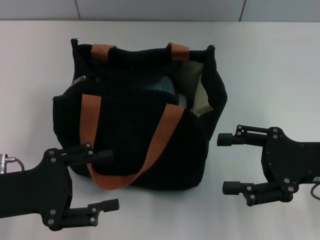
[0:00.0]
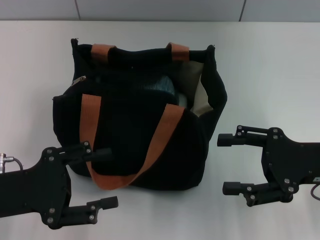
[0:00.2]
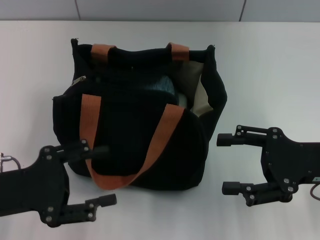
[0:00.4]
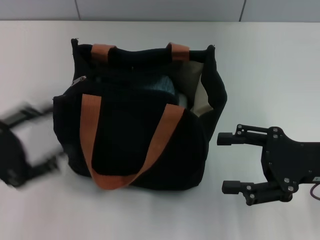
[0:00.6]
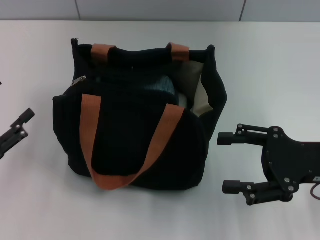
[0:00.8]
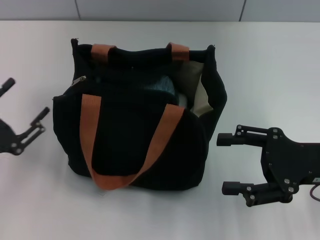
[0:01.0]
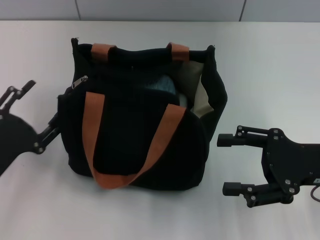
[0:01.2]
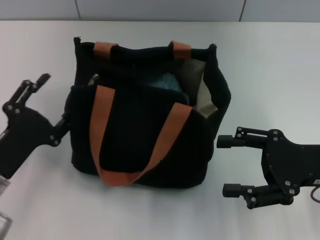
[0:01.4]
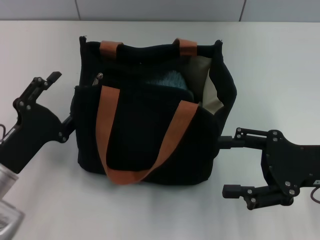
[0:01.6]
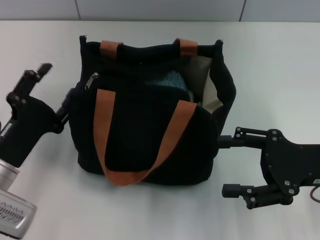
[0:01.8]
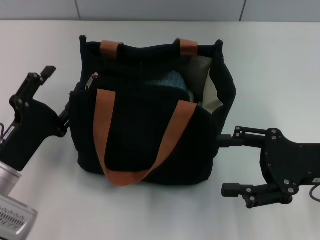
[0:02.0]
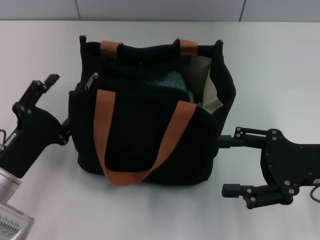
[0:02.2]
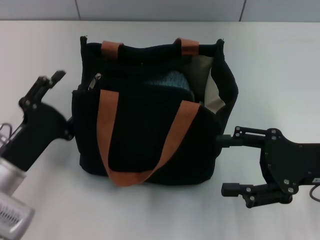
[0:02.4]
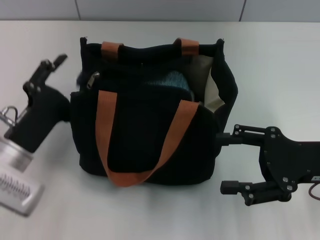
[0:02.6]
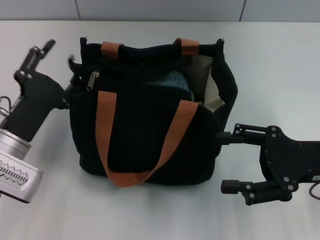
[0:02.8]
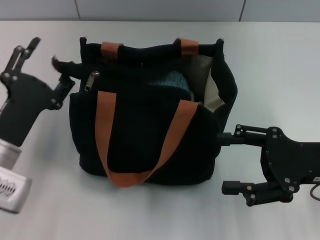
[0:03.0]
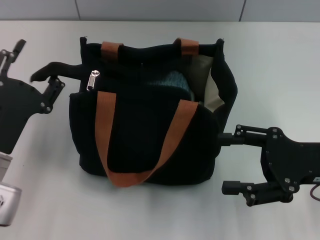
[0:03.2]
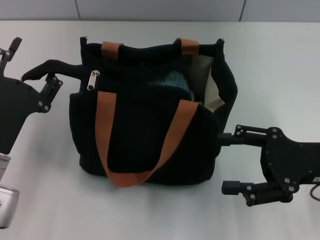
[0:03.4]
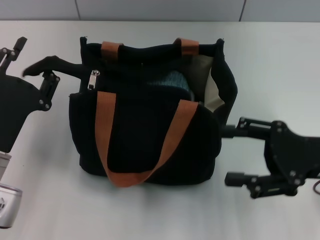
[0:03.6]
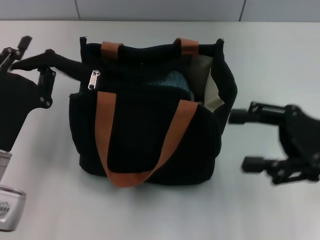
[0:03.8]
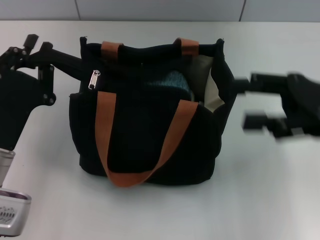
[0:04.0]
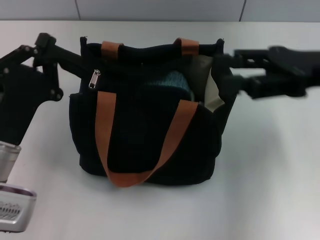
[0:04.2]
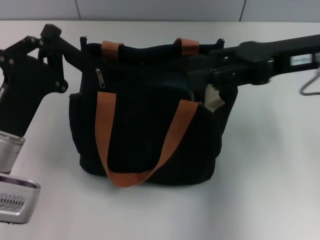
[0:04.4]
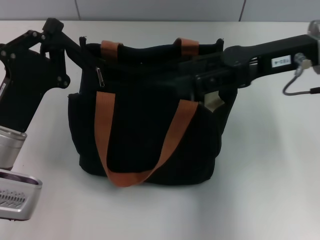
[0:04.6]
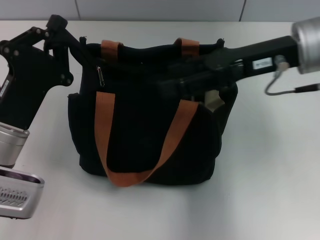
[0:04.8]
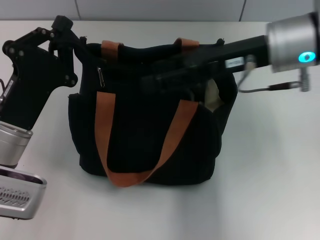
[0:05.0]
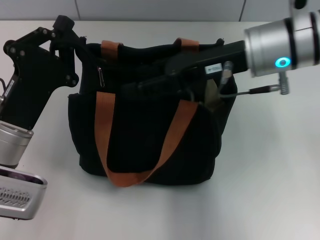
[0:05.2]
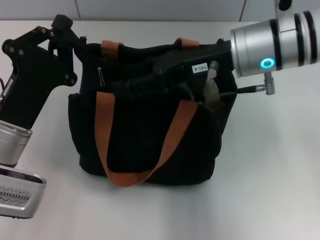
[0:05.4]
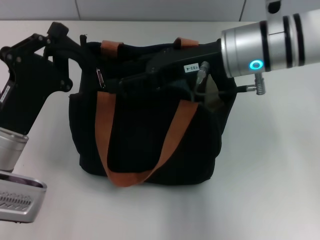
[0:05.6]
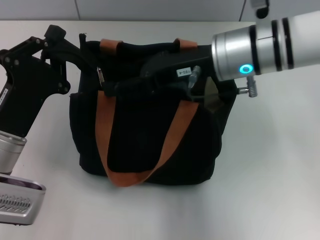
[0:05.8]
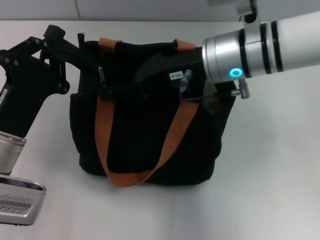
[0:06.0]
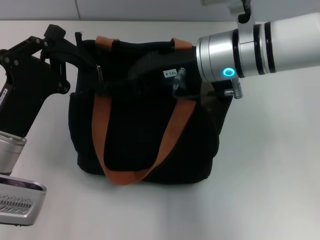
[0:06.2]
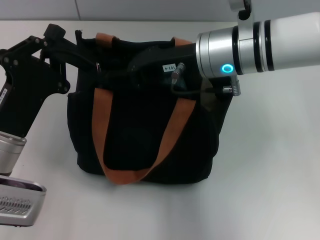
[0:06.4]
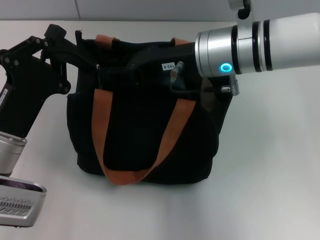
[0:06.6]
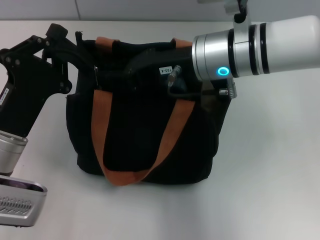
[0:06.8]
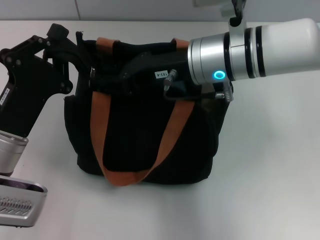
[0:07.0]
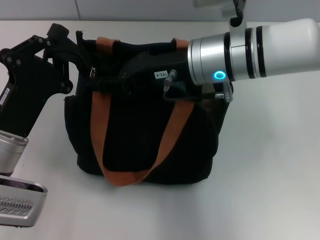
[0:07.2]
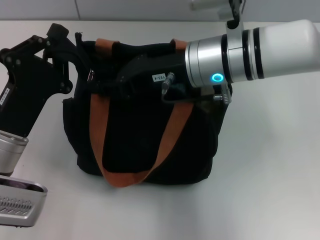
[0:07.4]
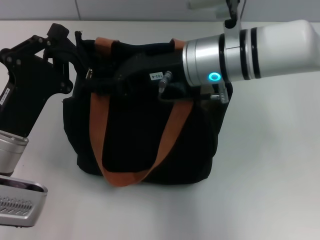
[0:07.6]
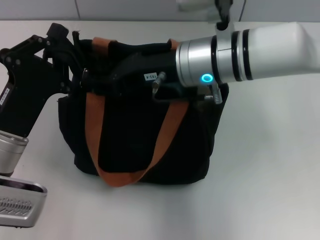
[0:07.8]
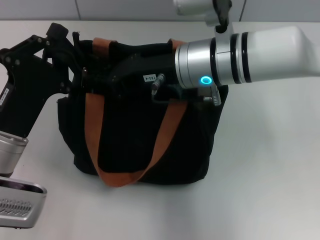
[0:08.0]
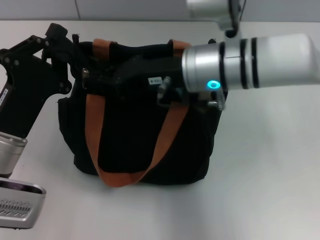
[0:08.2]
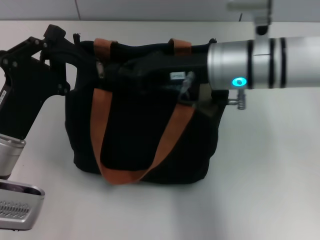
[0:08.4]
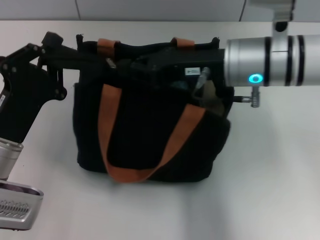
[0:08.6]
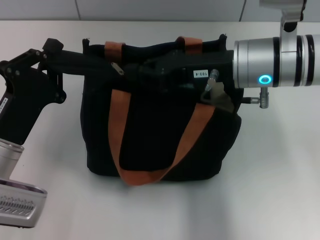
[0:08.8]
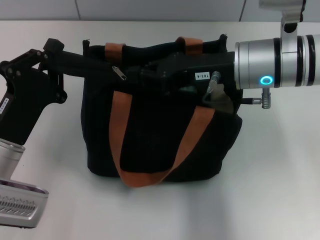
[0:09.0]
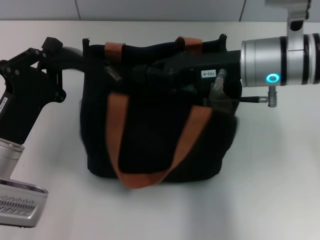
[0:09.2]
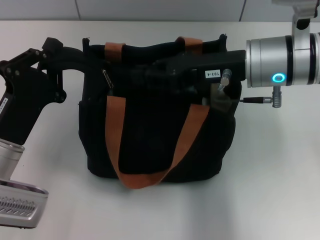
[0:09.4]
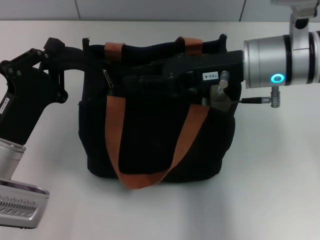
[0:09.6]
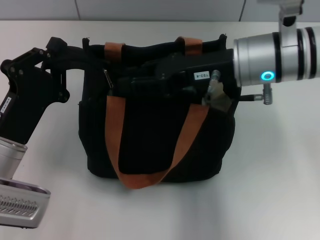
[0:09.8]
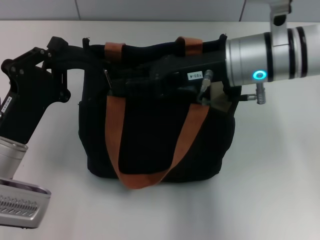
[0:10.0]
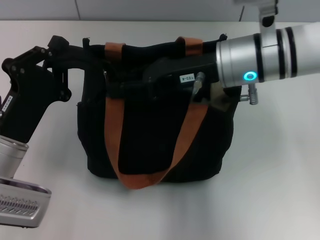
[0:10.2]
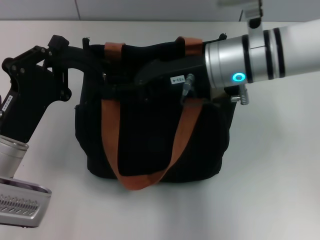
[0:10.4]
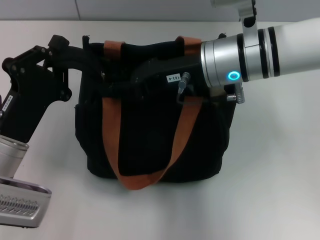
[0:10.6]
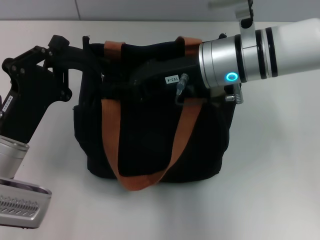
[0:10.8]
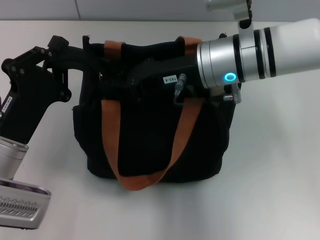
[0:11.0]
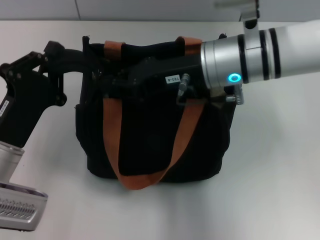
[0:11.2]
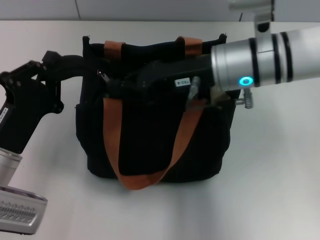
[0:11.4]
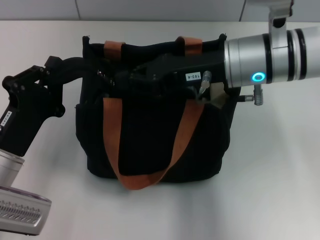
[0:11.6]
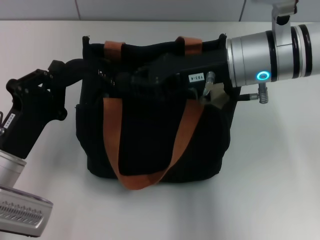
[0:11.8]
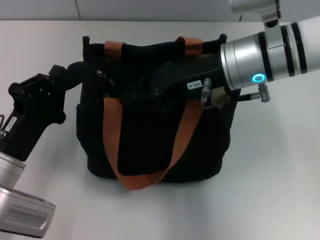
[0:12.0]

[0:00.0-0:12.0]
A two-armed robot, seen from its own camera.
0:00.0 to 0:01.6: The left gripper shifts roughly 5 cm downward, and travels to the left and back again, some 5 cm each way.
0:01.6 to 0:03.0: The grippers make only small movements.
0:03.0 to 0:04.4: The right gripper goes approximately 15 cm upward, forward and to the left, while the left gripper closes its fingers.
0:04.4 to 0:06.0: The right gripper goes approximately 10 cm to the left.
0:06.0 to 0:07.6: The right gripper closes.
0:07.6 to 0:09.0: The right gripper heads to the right, covering about 5 cm, and closes up.
0:09.0 to 0:10.4: The right gripper opens up.
0:10.4 to 0:12.0: The right gripper closes its fingers.

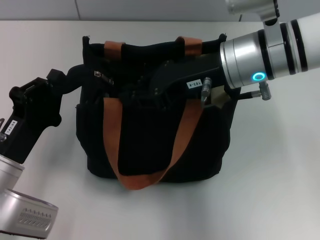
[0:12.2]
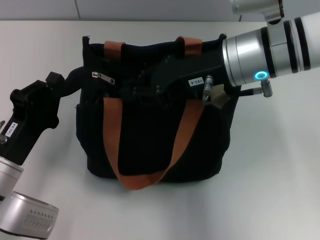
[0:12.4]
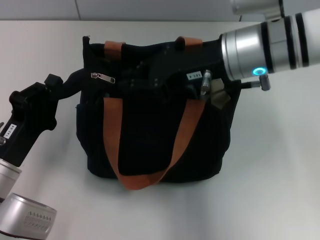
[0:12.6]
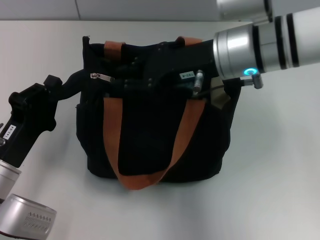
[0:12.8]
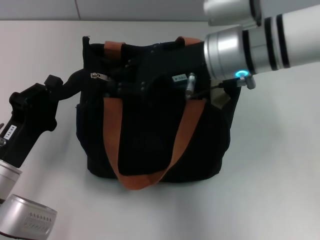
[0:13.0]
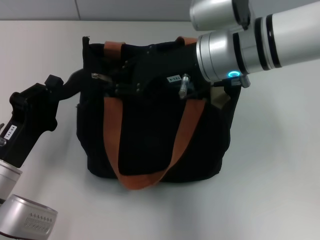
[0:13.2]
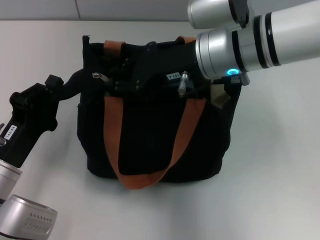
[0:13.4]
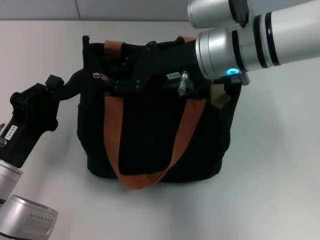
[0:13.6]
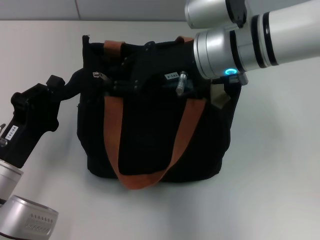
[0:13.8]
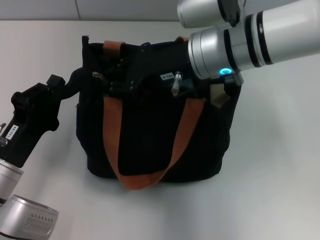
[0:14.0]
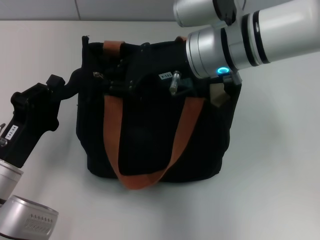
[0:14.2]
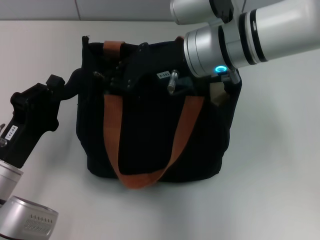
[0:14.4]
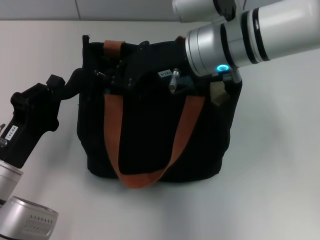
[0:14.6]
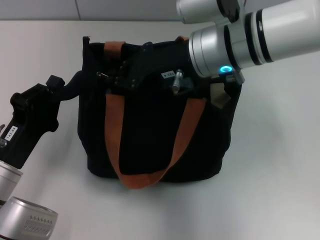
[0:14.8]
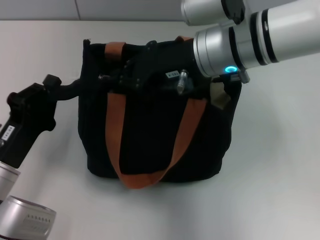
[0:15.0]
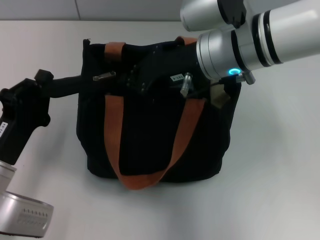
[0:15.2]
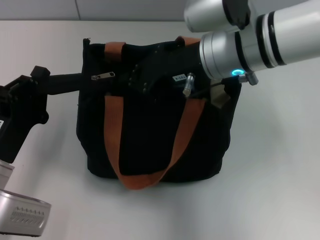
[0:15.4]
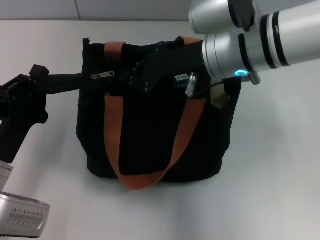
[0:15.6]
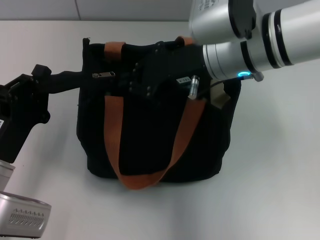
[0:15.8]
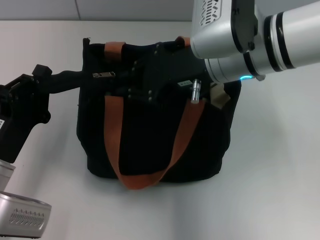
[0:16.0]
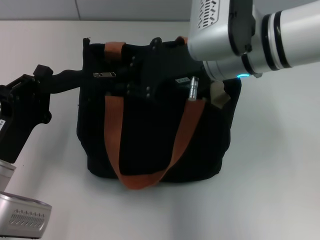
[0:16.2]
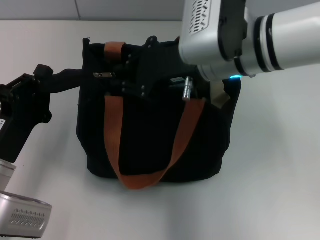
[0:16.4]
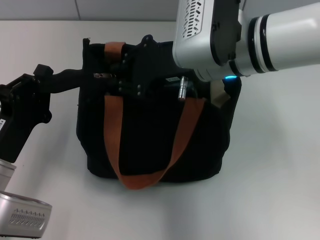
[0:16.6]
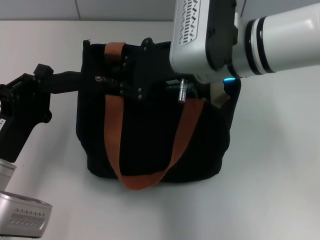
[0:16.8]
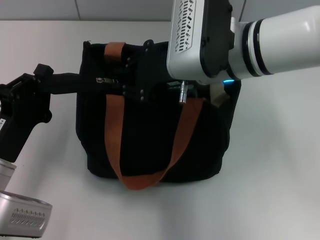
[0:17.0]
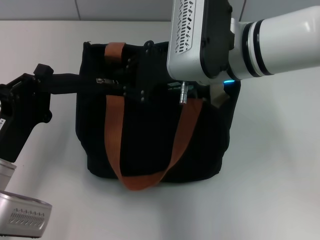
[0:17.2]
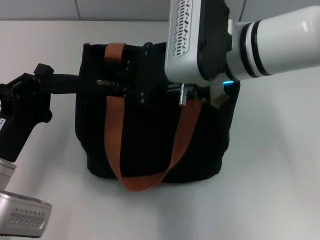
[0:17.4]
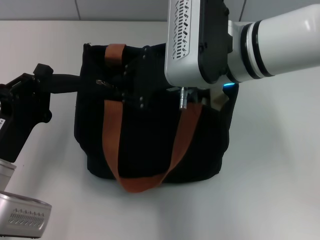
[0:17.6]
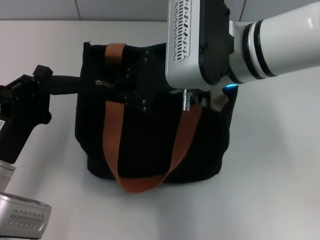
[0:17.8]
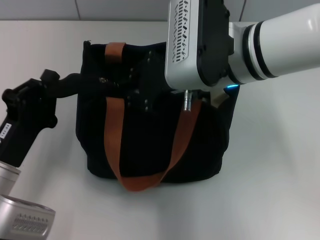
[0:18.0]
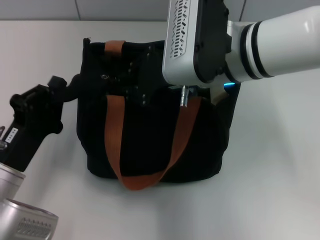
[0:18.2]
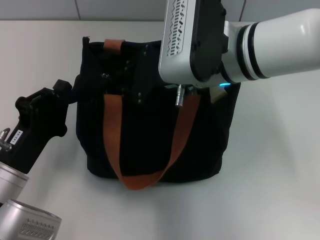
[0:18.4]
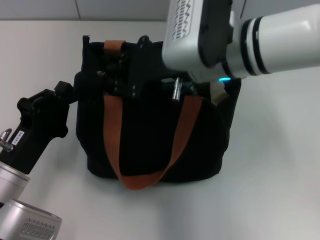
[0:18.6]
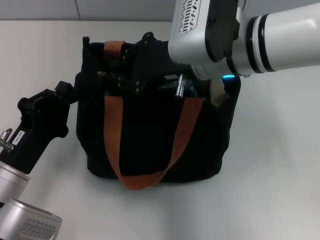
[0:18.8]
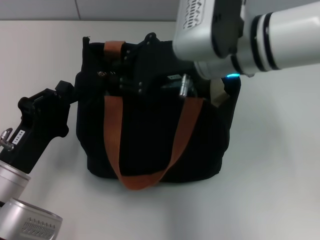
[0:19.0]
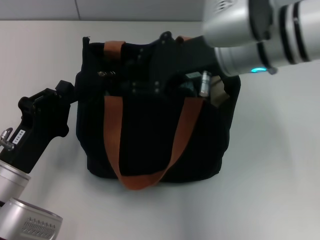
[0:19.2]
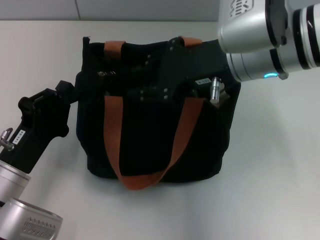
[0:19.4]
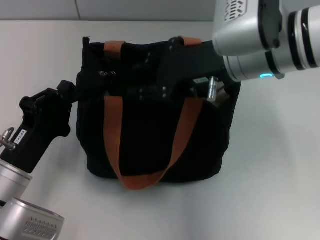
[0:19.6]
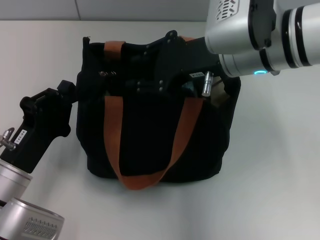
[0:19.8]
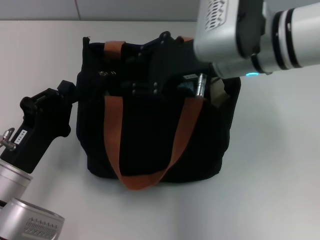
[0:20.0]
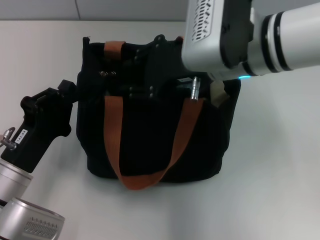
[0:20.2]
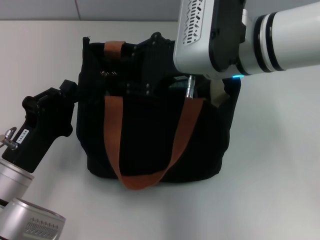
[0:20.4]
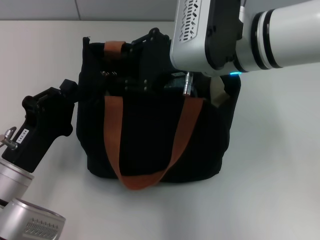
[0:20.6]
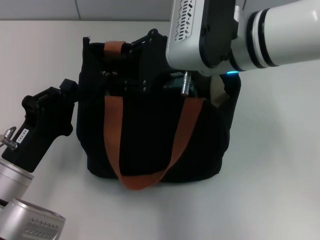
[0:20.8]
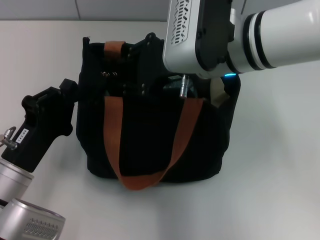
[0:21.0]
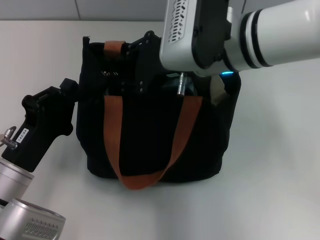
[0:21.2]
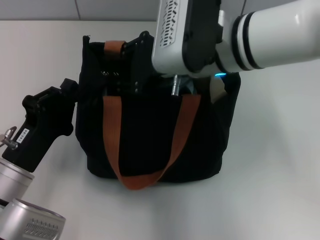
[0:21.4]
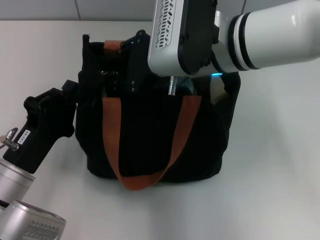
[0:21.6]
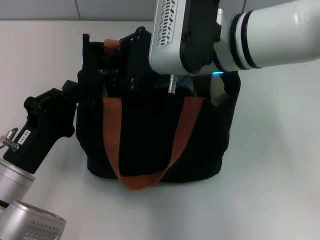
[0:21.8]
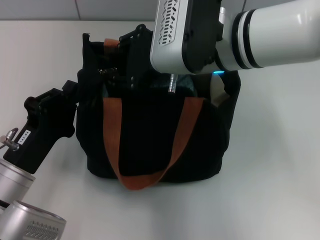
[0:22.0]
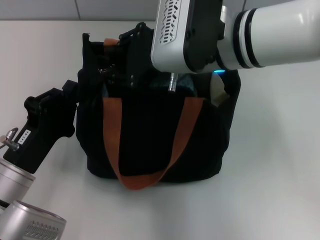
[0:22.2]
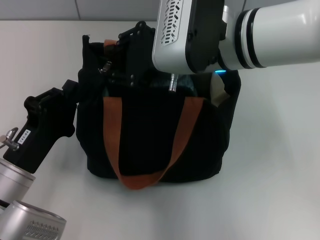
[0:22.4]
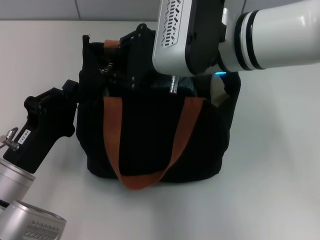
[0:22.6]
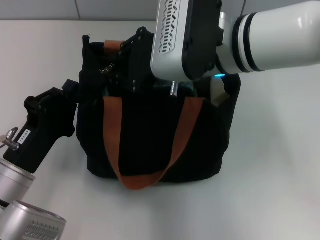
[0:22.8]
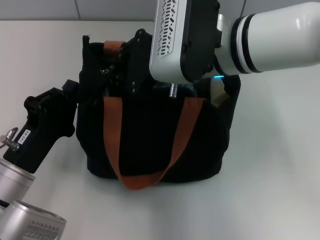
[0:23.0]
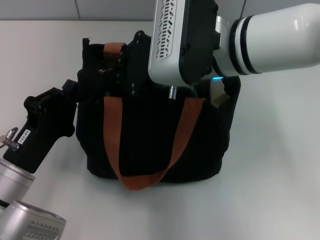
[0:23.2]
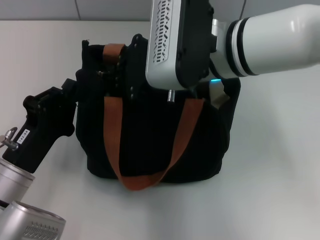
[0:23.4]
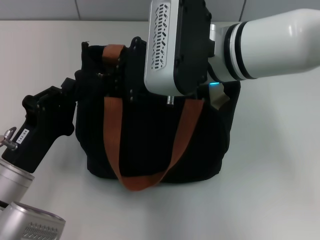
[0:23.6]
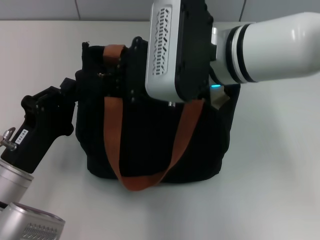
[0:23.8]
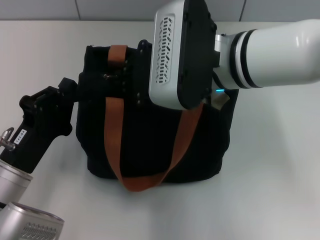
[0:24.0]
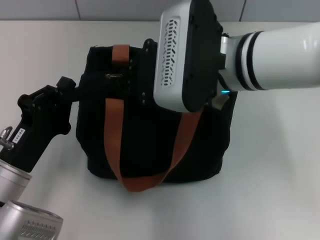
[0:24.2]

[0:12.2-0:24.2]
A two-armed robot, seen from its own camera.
0:12.2 to 0:15.2: There are only small adjustments of the grippers.
0:15.2 to 0:16.6: The grippers make only small movements.
0:16.6 to 0:21.2: The grippers move only a little.
0:21.2 to 0:22.6: Neither gripper changes place.
0:22.6 to 0:24.2: The right gripper closes its fingers.
